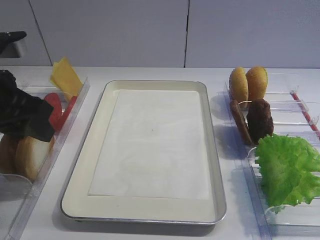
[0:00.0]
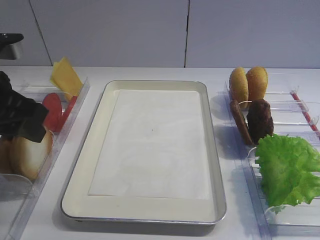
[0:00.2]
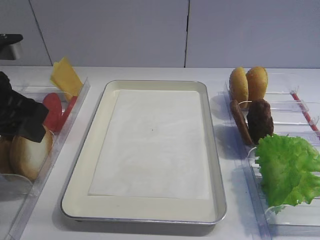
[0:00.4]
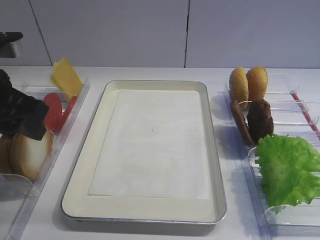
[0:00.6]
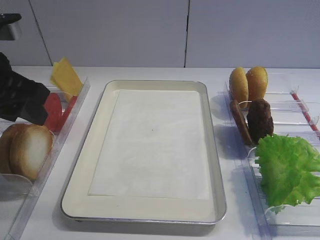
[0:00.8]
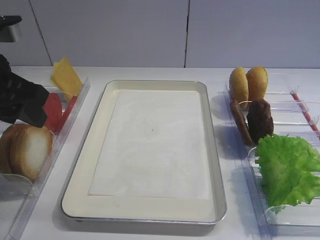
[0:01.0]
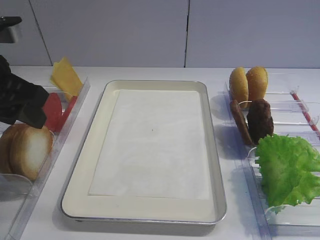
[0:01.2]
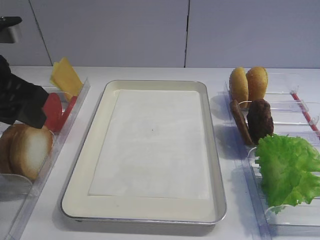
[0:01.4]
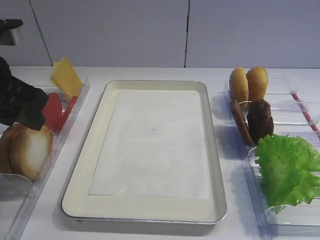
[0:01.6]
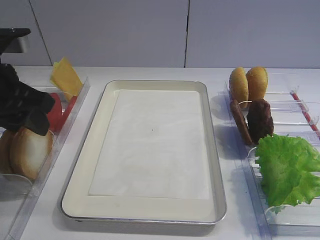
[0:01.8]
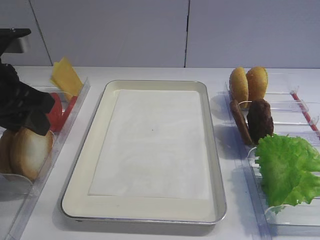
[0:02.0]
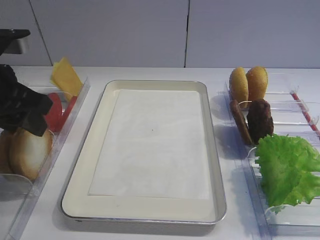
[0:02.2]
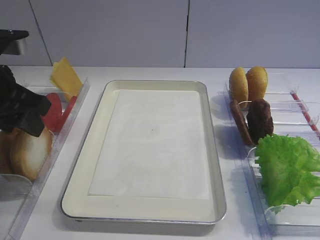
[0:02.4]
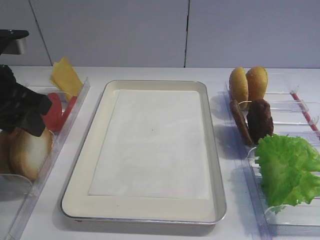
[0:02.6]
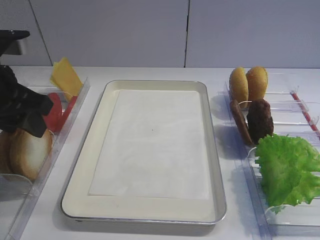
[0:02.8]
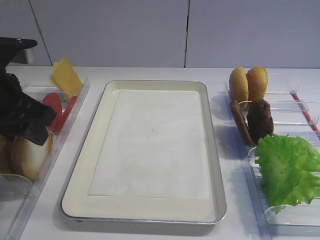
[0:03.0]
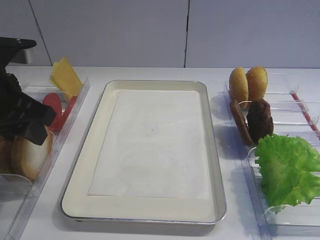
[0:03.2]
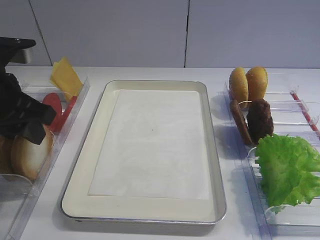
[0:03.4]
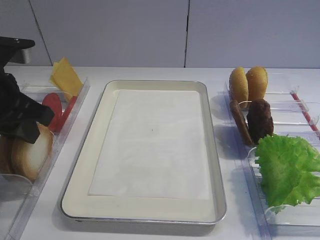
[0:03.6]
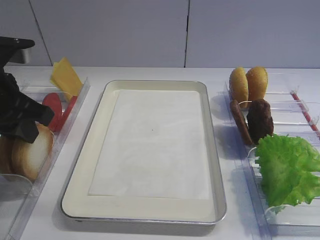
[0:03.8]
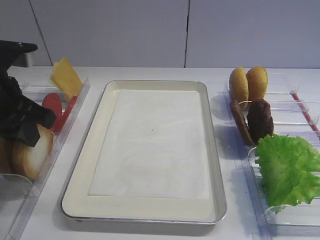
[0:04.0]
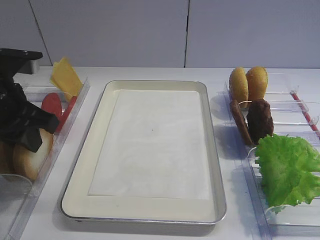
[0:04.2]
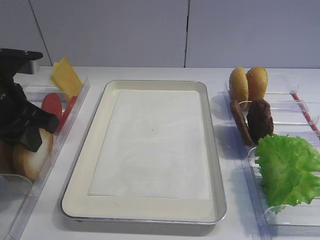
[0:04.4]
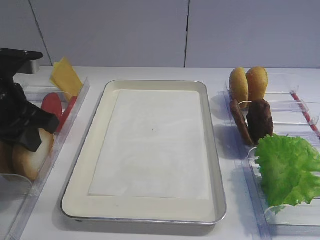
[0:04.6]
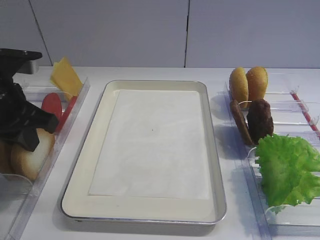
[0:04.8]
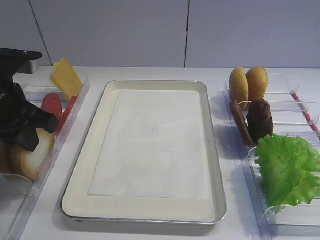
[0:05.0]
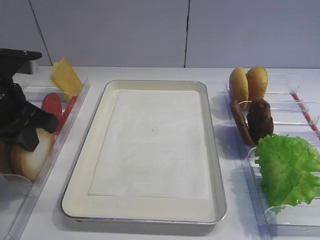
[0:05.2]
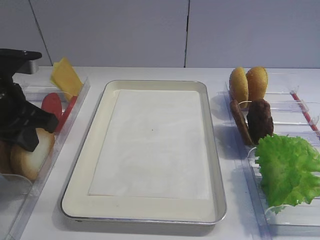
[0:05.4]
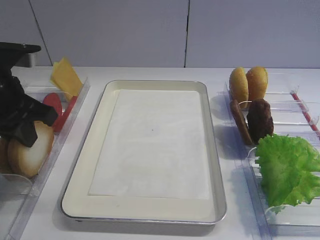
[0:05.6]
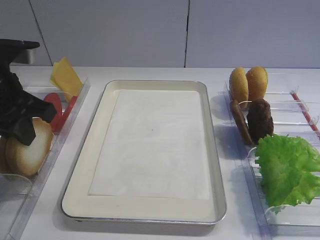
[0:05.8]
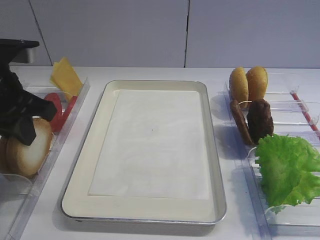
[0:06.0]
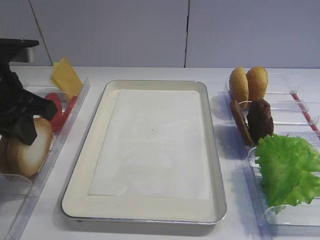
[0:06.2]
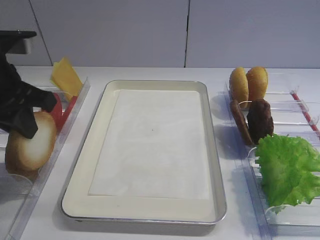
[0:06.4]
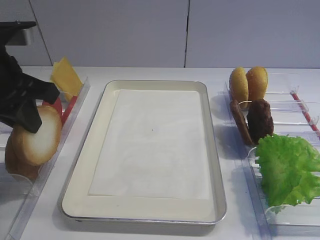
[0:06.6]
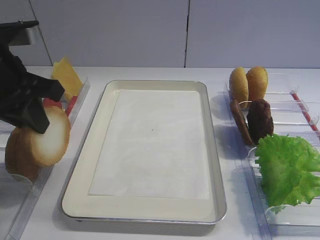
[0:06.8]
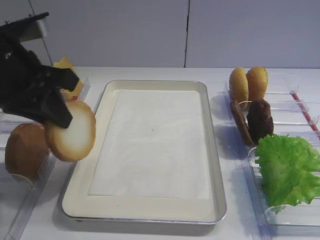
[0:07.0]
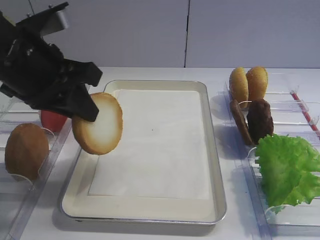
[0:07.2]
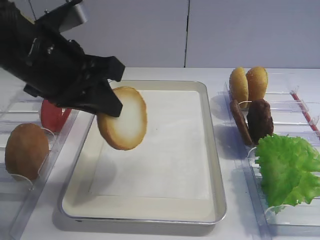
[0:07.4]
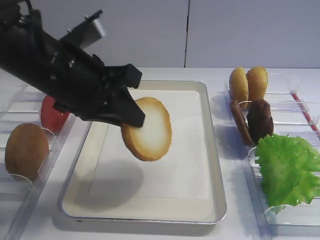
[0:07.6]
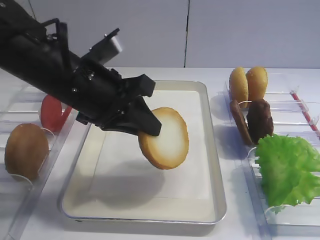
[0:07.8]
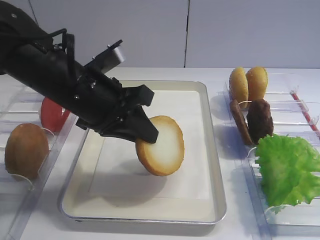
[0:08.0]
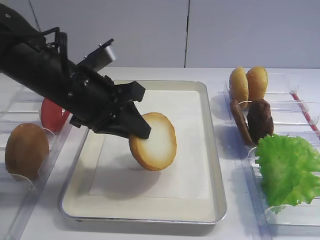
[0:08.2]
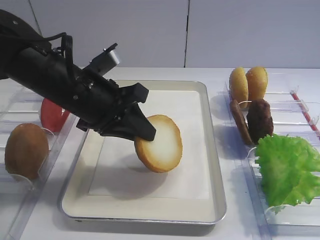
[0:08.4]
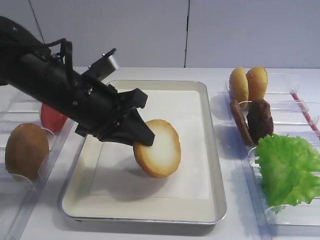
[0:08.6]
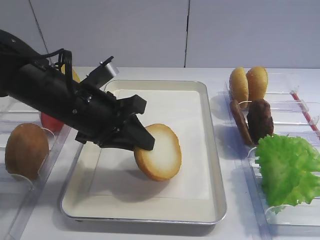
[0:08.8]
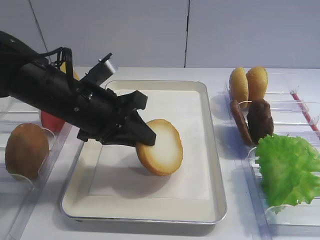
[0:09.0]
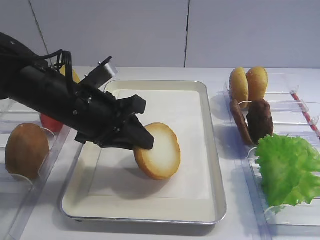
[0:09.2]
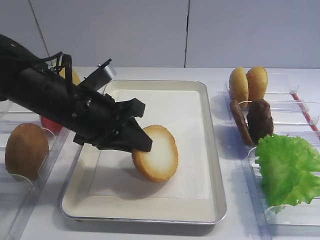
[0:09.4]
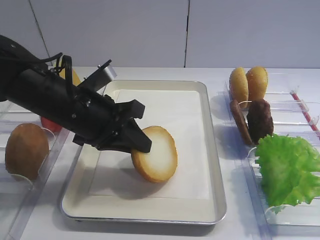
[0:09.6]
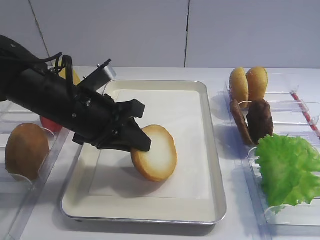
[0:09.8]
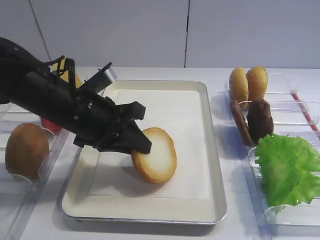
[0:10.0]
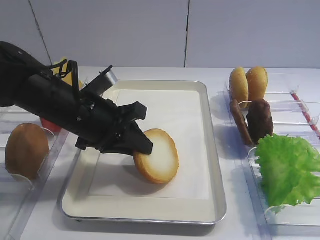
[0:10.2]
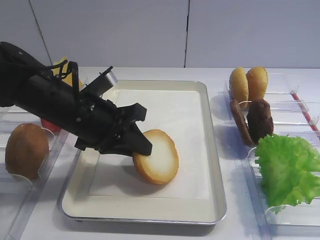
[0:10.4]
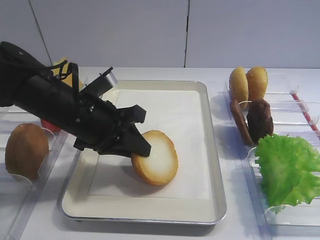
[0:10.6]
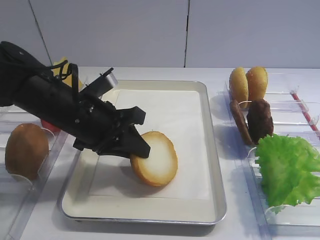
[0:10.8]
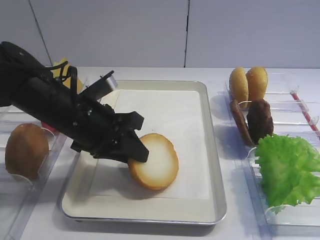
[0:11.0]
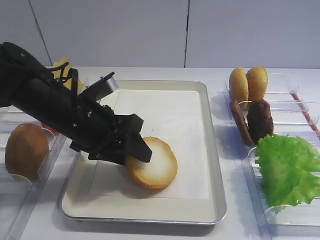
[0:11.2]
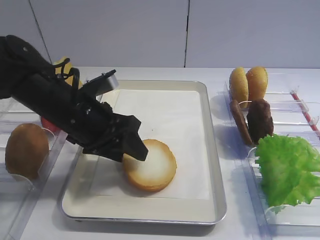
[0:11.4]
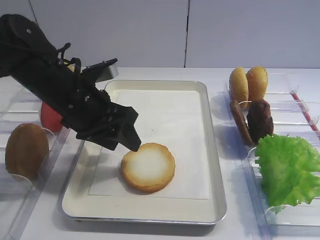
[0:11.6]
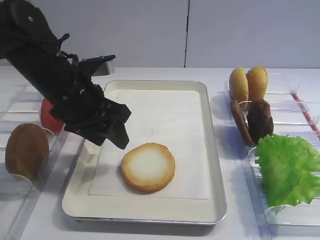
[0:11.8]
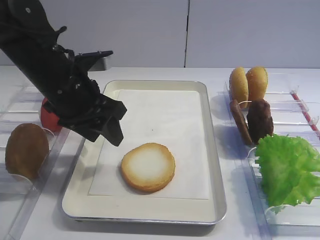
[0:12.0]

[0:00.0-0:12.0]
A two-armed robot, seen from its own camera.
Step, 0:00.0 to 0:06.8: Pick up the bread slice with the left gripper.
Step, 0:07.0 to 0:11.8: Place the bread slice on the tray with the left gripper.
0:00.0 to 0:03.0: There are only small adjustments of the grippers.
0:03.0 to 0:04.4: The left gripper closes.
0:04.4 to 0:06.0: The grippers make only small movements.
0:06.0 to 0:07.6: The left gripper is displaced to the right by some 10 cm.
0:07.6 to 0:09.0: The left gripper is displaced downward by approximately 5 cm.
0:09.0 to 0:10.4: The grippers stay close to where they were, moving slightly.
0:10.4 to 0:12.0: The left gripper changes place by approximately 5 cm, and opens its fingers.

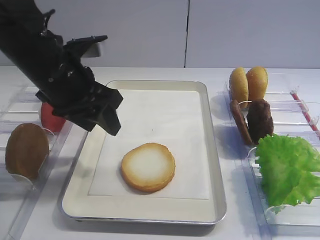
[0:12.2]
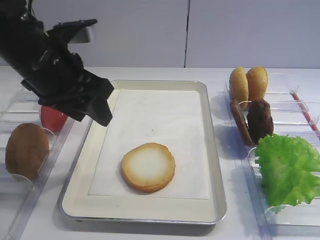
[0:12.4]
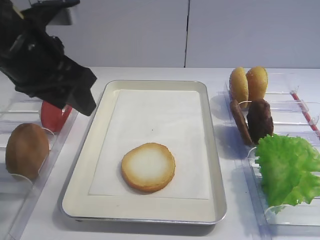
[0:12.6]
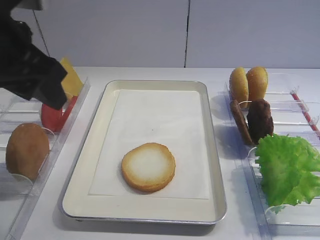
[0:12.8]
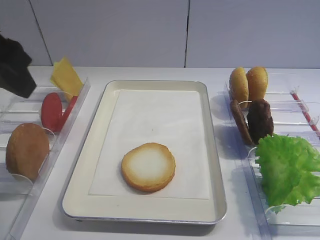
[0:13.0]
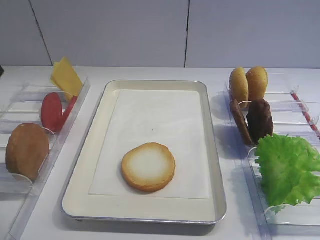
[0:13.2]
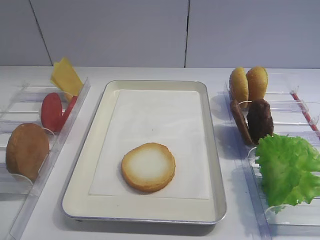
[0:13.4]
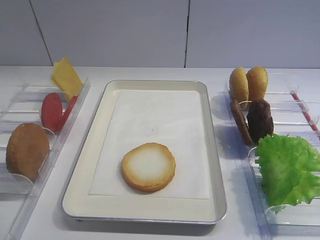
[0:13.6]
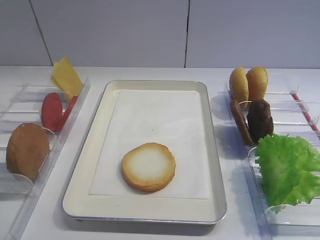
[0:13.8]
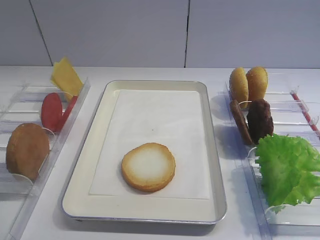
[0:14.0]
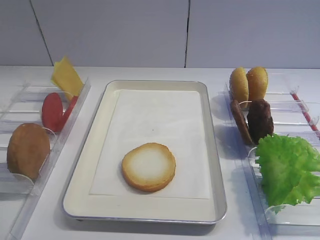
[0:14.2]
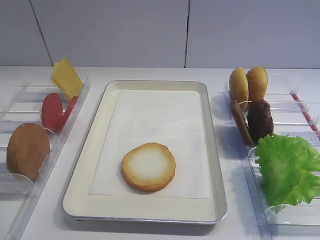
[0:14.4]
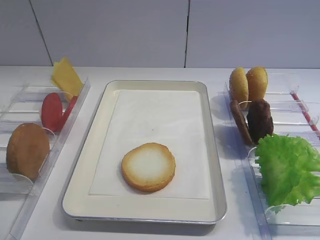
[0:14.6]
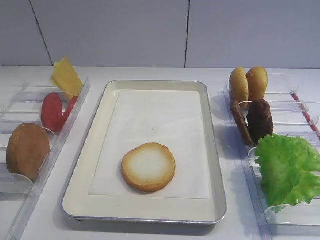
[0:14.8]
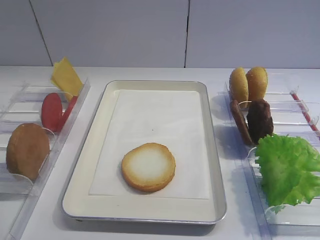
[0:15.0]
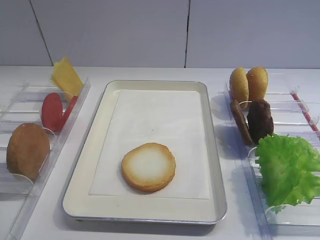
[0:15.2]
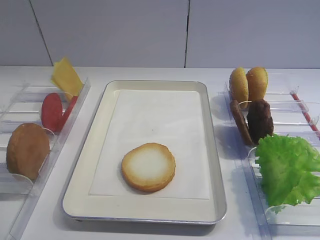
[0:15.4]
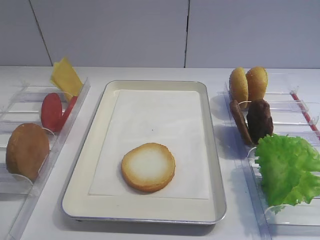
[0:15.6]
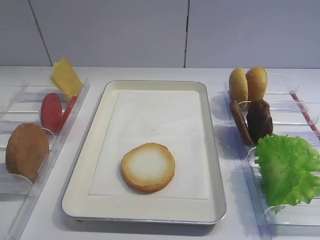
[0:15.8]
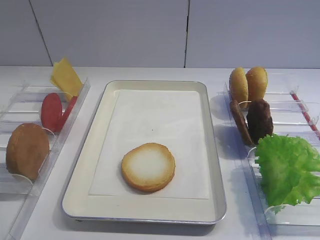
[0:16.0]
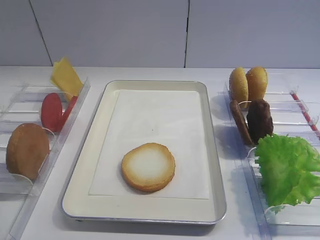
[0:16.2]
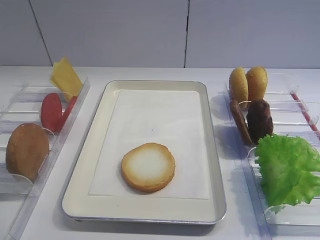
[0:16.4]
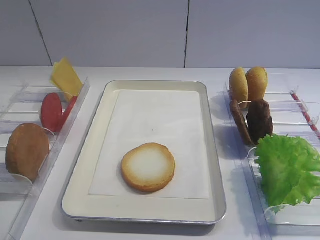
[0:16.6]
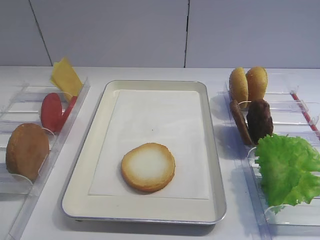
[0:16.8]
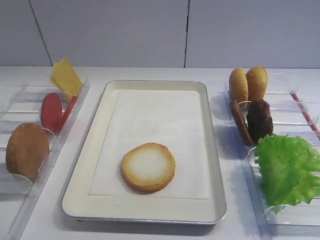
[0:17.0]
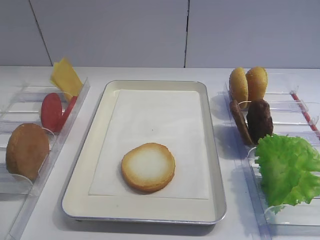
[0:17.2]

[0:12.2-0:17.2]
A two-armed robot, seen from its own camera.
0:12.2 to 0:13.8: The left gripper is displaced backward and to the left by roughly 30 cm.
0:15.6 to 0:17.2: Both grippers stay about where they are.

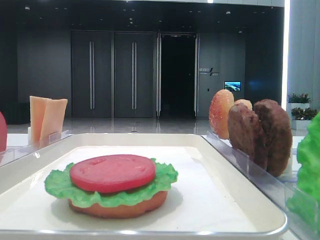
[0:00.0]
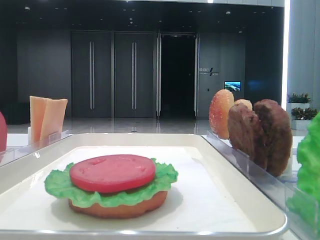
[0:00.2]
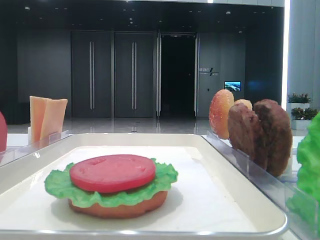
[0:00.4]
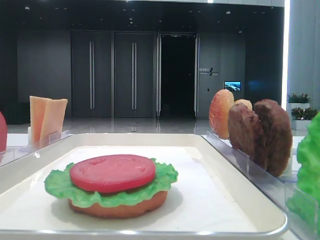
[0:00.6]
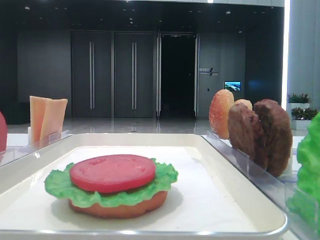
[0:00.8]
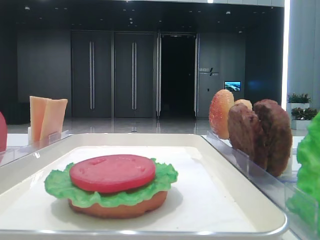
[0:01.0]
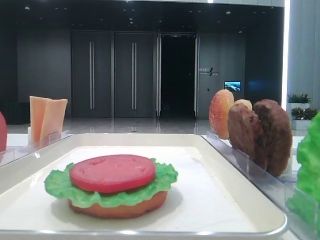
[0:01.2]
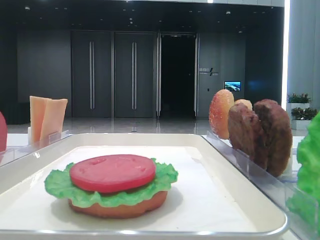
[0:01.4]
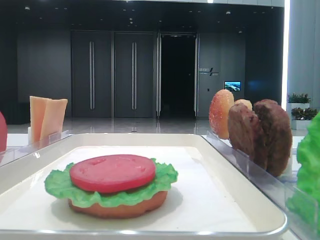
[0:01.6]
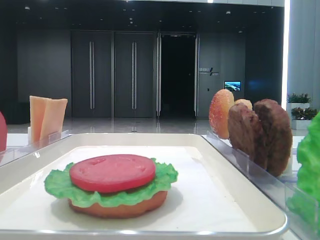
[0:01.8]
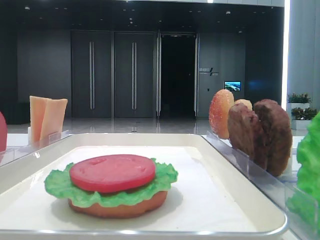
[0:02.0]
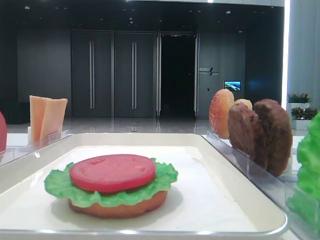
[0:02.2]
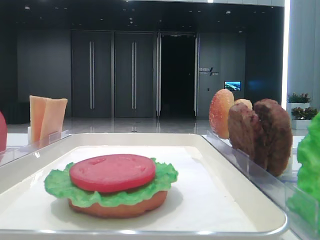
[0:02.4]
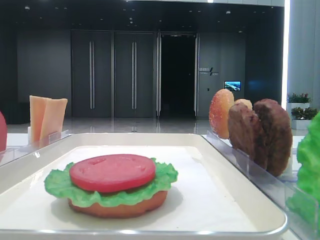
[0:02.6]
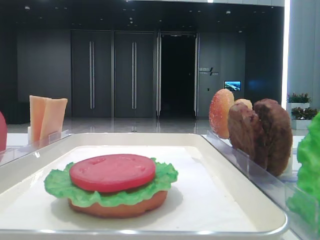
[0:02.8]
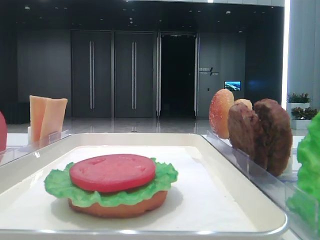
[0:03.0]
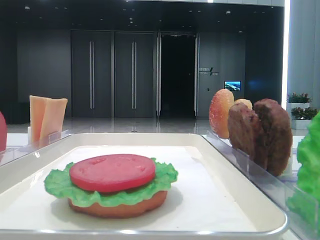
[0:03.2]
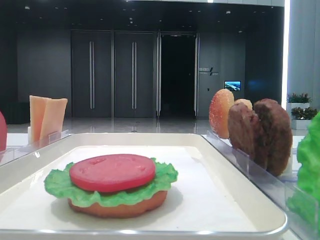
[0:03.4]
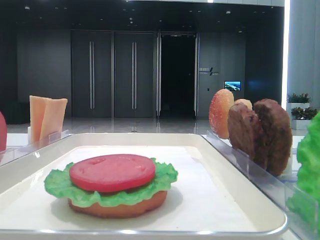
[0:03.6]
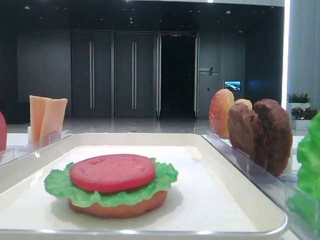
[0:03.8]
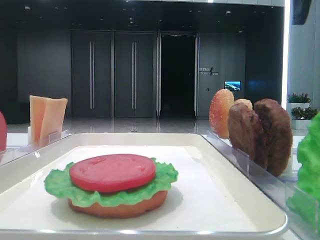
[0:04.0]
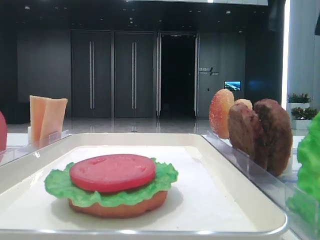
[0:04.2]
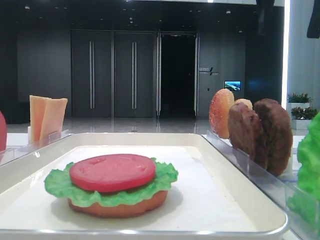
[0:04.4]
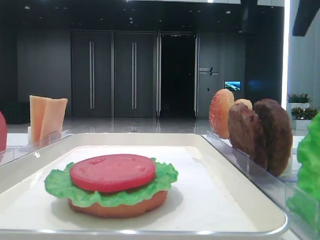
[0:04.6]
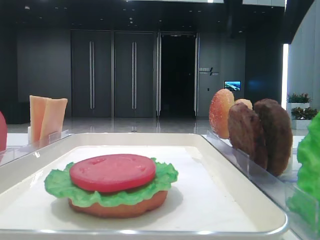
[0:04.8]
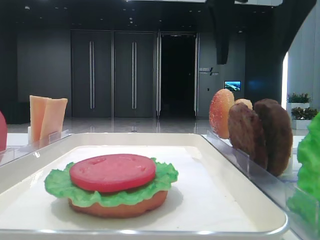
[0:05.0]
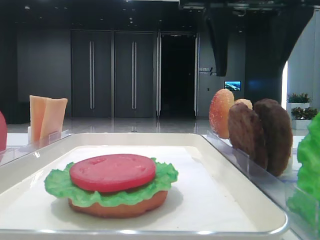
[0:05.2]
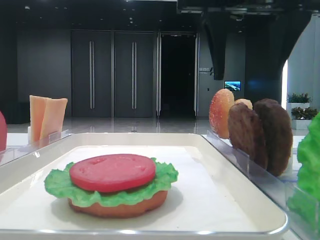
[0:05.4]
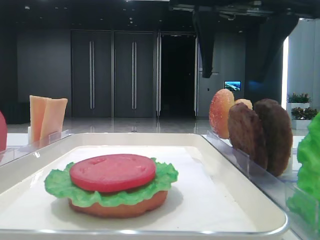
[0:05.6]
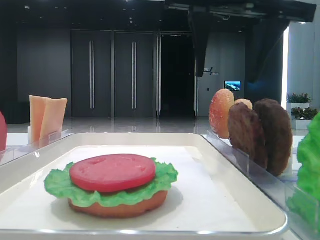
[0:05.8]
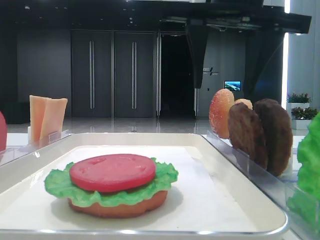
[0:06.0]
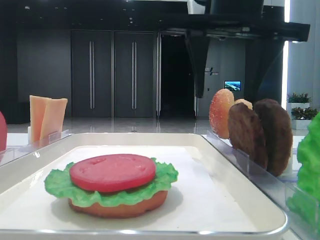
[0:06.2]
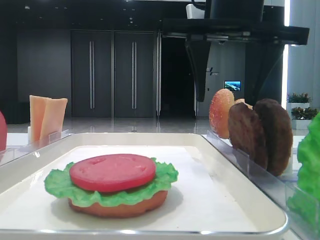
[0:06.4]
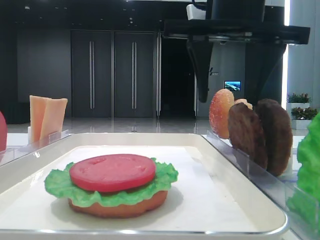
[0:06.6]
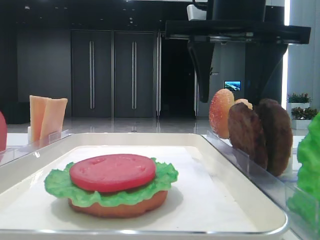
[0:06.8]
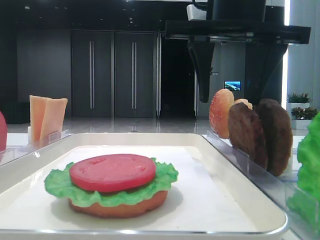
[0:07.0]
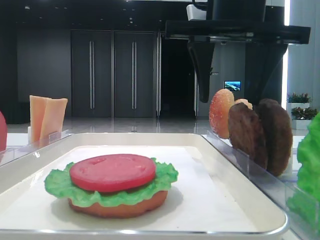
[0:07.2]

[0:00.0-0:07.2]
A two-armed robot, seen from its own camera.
0:02.8 to 0:04.4: The right gripper is displaced to the left by about 15 cm.
0:04.4 to 0:05.8: The right gripper goes approximately 10 cm to the left and downward.
0:05.8 to 0:07.2: The grippers make only small movements.
